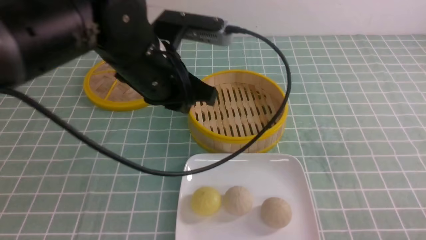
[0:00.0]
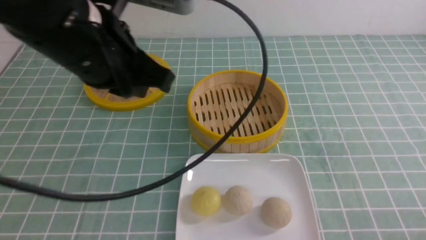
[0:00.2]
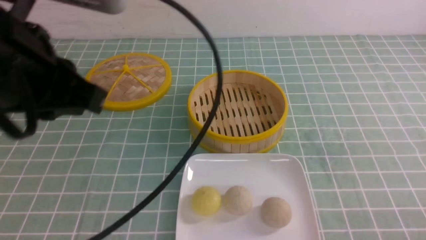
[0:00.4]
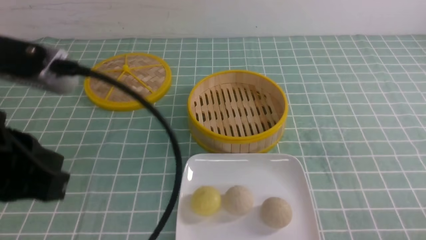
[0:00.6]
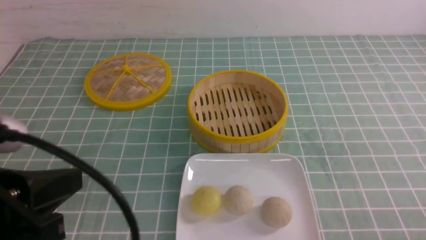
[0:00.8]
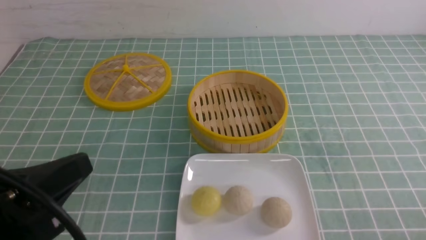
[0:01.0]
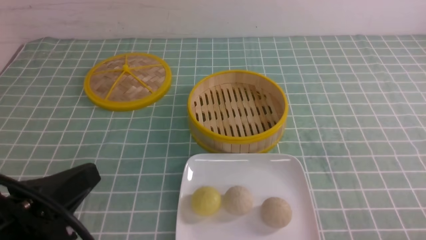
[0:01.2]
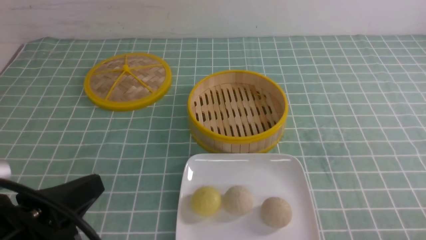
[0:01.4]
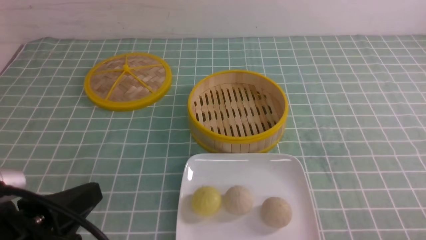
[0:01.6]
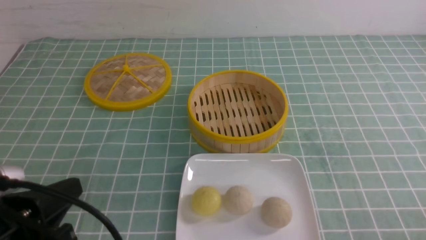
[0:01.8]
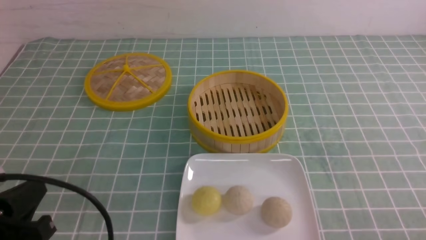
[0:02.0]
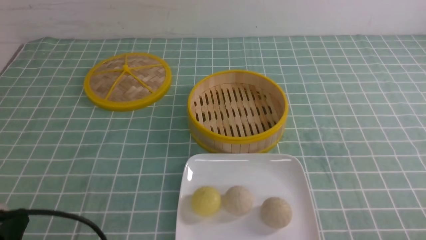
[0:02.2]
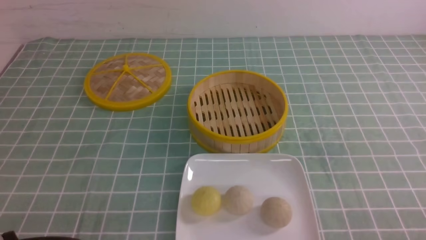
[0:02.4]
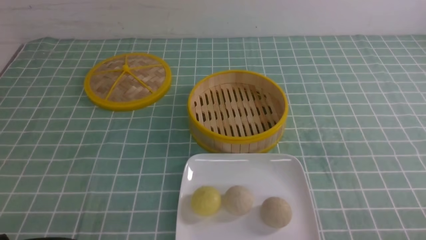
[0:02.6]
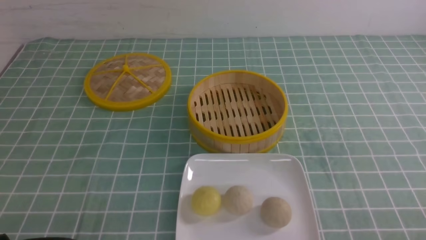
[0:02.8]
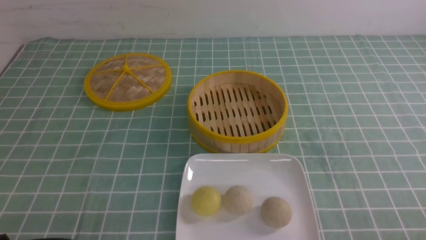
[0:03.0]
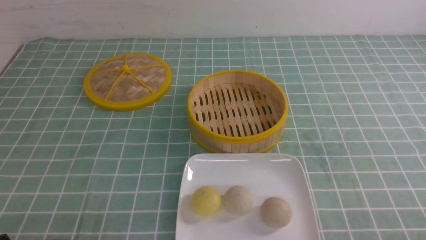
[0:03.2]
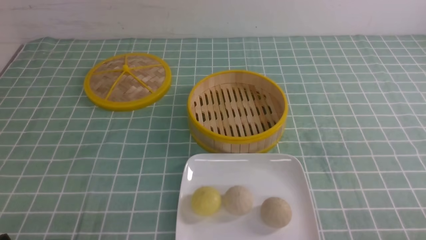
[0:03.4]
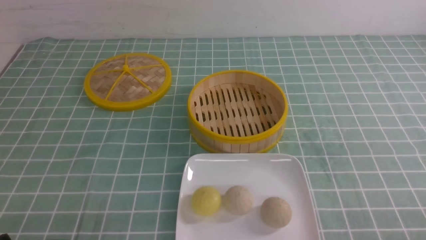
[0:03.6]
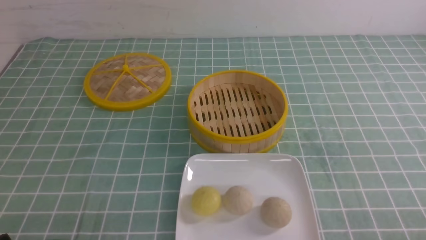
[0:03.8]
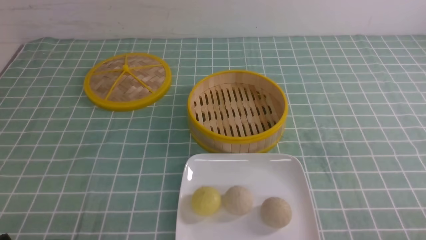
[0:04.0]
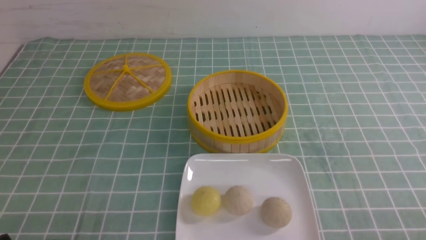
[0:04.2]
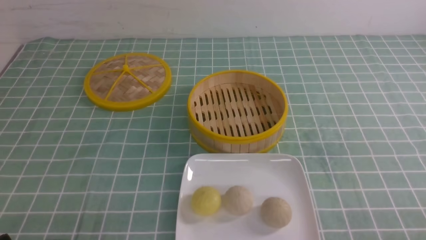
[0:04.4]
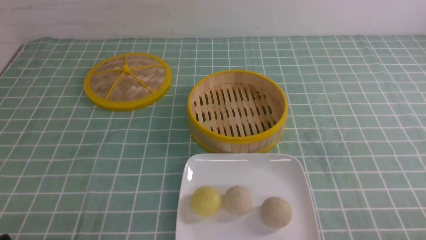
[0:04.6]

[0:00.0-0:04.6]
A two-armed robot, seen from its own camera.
0:00.0 to 0:01.6: The left gripper shifts roughly 25 cm backward and to the left.
0:01.6 to 0:03.0: The left gripper shifts approximately 10 cm downward and to the left.
0:03.0 to 0:04.6: The two grippers keep their place.

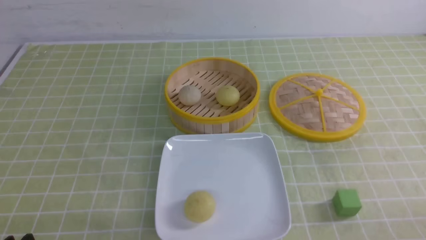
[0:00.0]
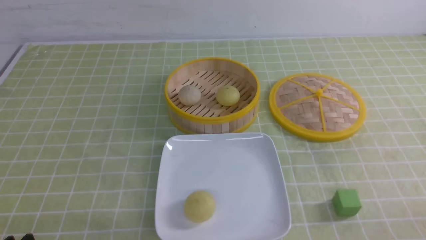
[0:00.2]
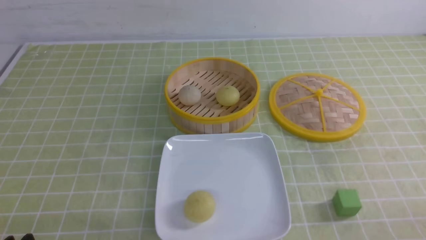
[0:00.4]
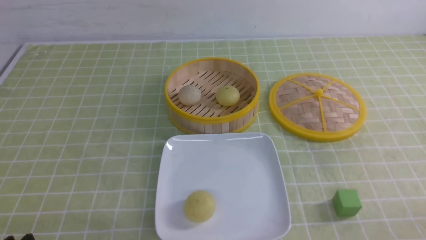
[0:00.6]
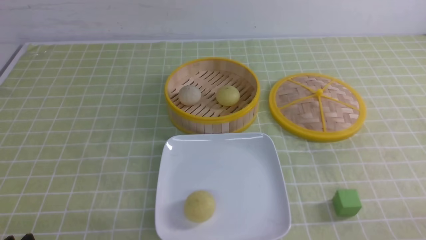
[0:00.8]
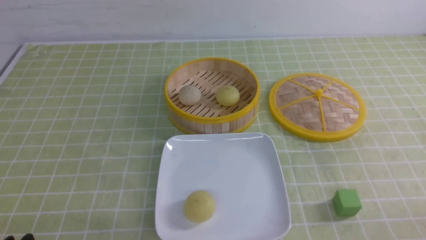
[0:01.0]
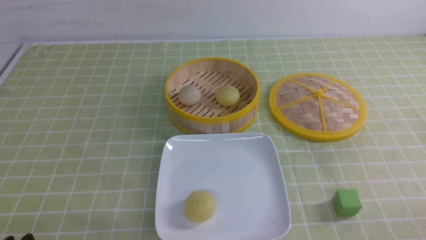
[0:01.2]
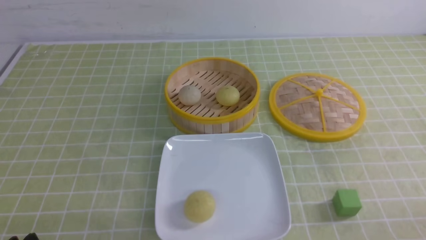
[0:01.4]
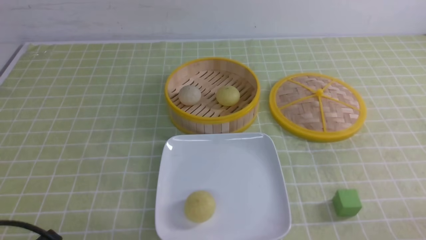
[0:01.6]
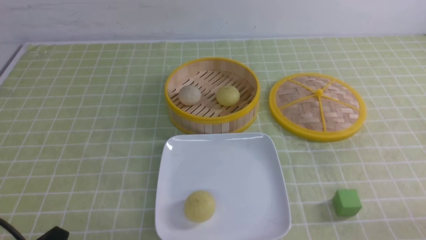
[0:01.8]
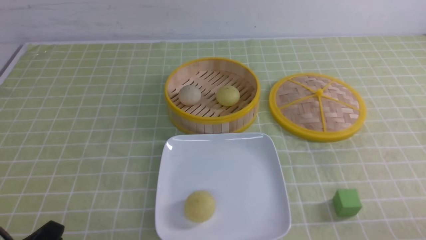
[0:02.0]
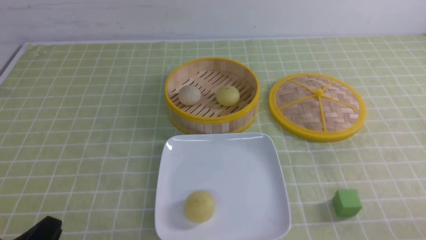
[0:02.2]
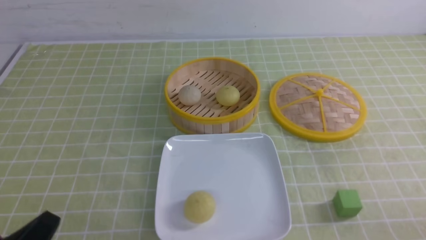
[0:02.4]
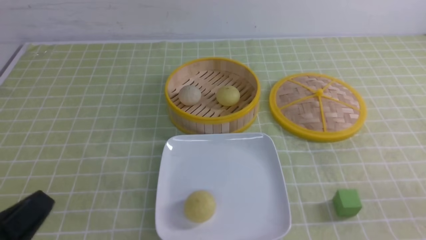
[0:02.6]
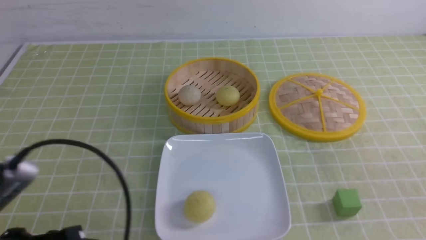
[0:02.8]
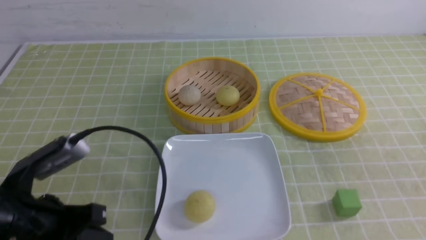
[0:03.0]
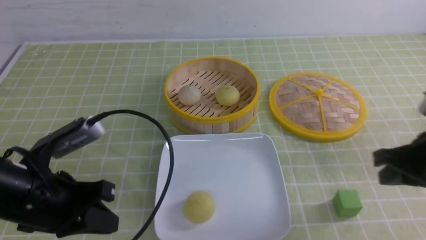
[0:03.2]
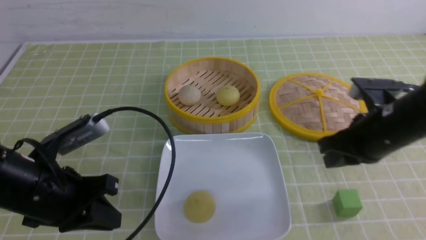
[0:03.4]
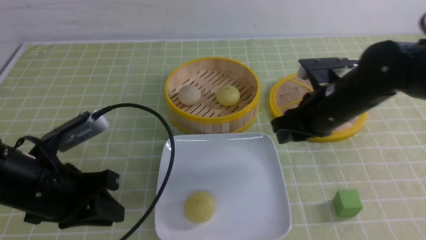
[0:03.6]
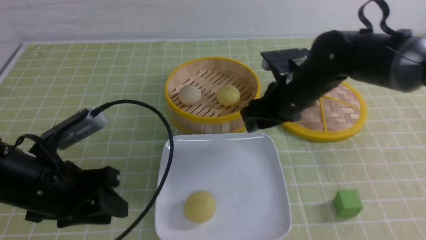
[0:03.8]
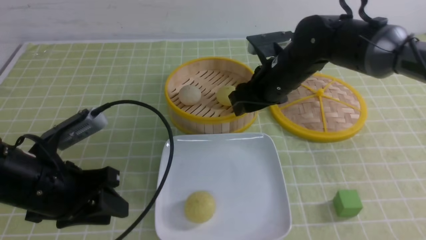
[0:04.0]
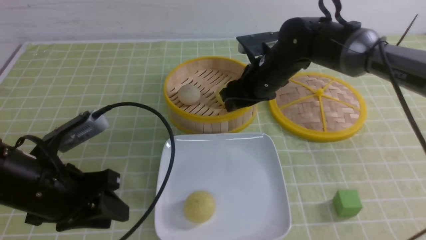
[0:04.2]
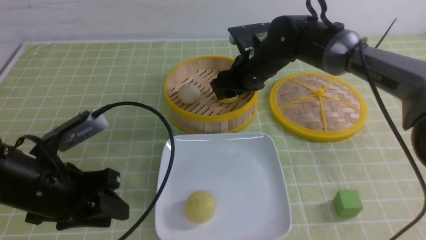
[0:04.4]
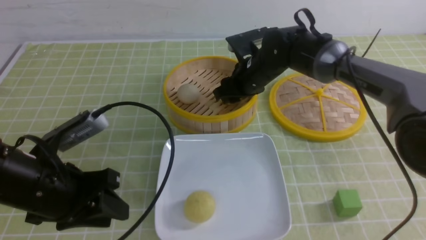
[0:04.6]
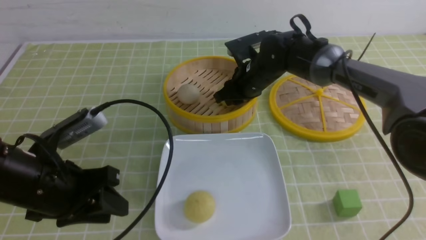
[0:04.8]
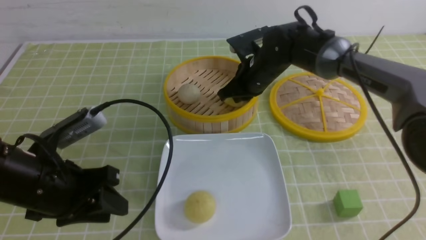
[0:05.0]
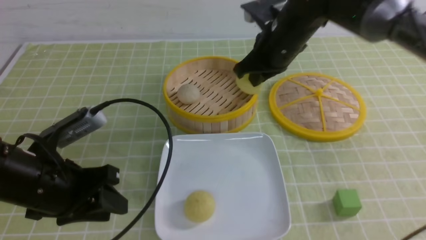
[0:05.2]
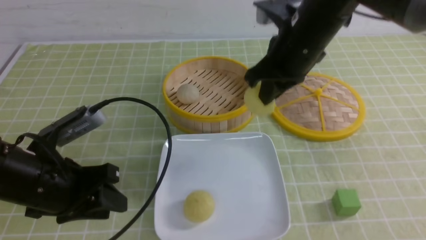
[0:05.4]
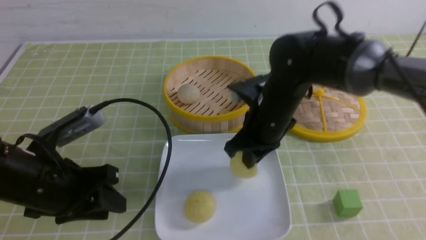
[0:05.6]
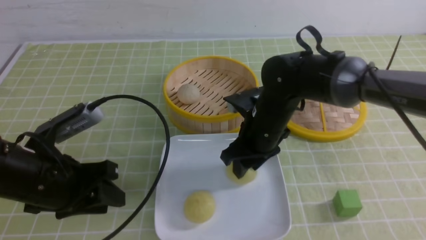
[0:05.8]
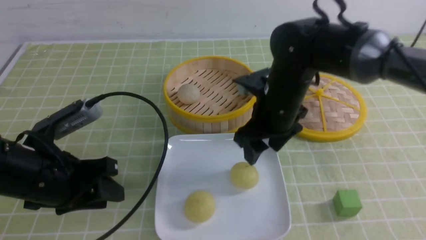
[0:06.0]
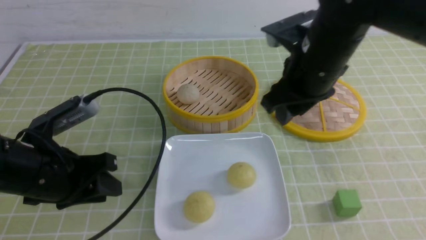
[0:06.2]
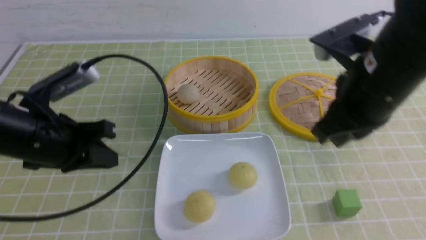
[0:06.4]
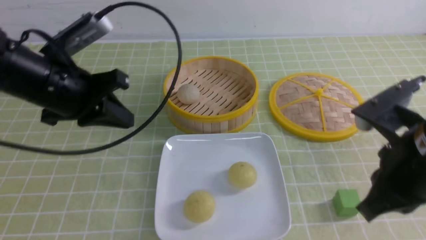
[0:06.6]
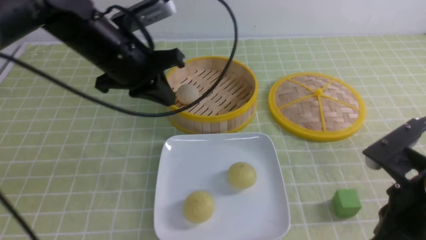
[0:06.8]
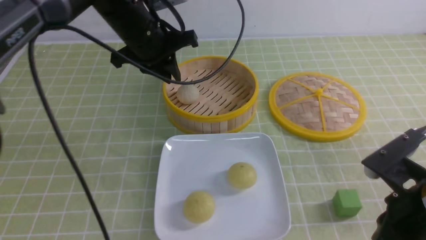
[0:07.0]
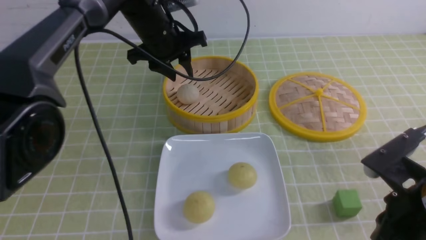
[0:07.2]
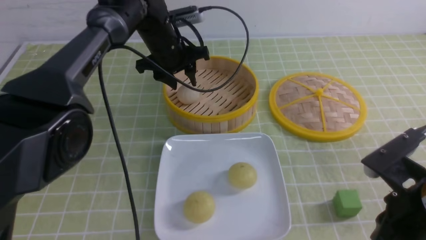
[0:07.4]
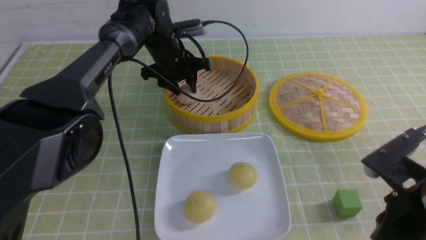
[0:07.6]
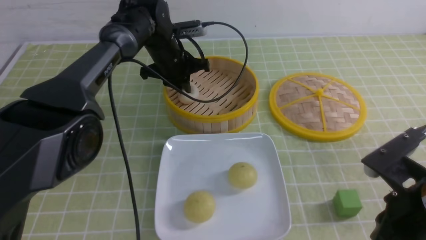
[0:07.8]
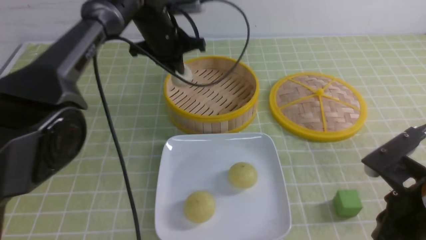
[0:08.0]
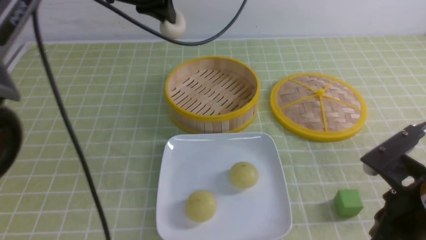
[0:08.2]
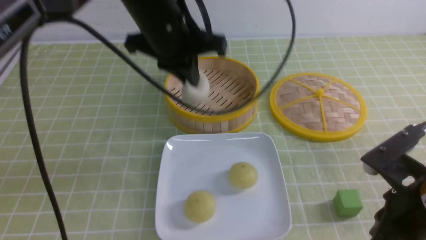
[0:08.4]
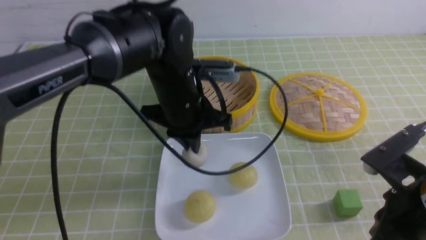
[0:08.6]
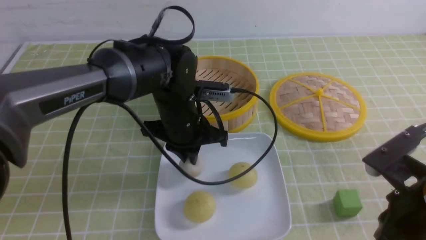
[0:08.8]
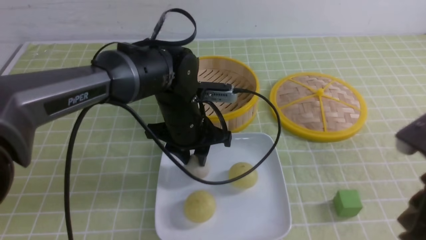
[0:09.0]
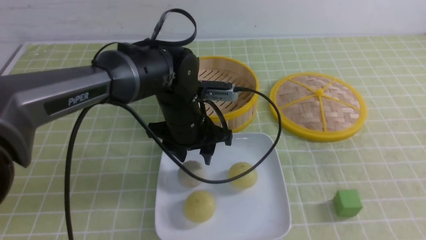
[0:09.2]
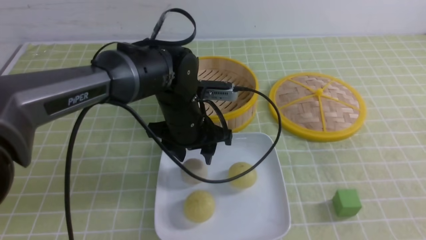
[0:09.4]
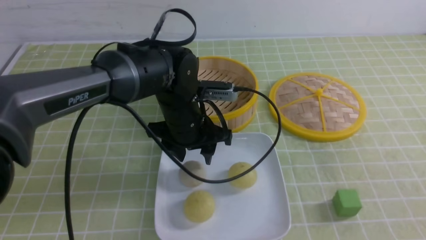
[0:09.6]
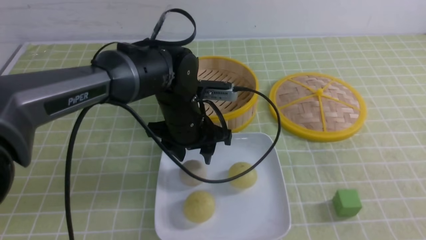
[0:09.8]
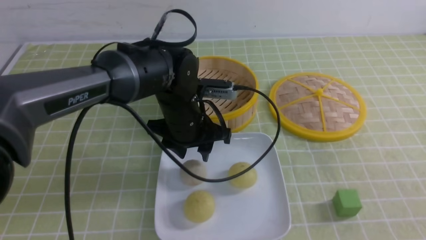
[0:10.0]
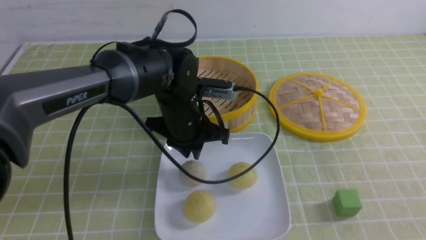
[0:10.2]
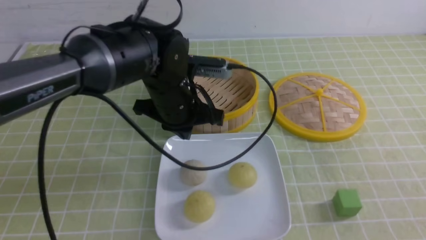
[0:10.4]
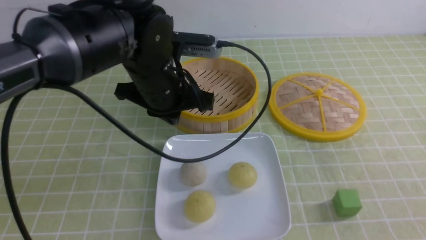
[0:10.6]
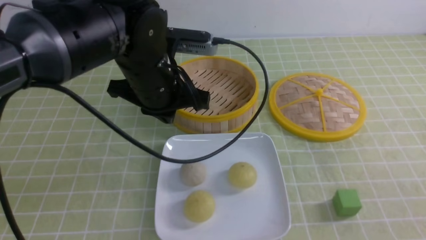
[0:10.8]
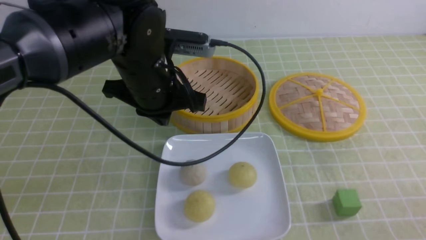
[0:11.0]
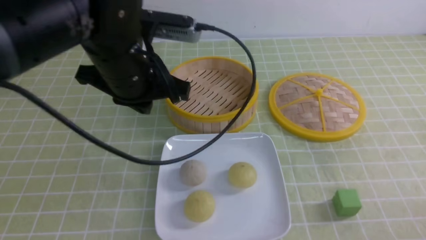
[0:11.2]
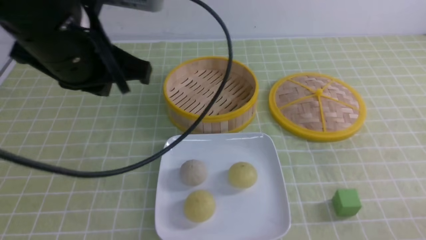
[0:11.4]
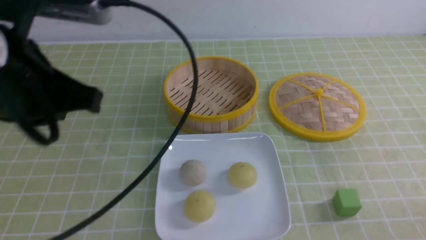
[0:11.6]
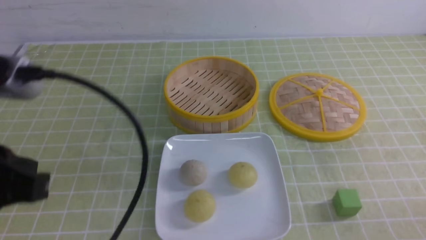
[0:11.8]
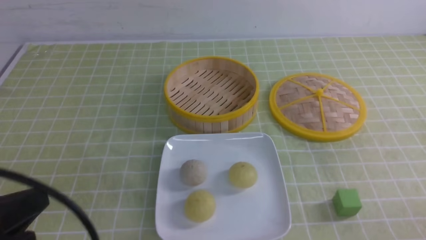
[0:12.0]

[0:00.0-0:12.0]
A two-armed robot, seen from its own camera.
Step, 0:00.0 to 0:04.8: use the right arm to grab the steamed stuffed bun that is closest to it.
Step, 0:05.0 to 0:05.8: use the right arm to put the steamed stuffed bun into the plate.
Step, 0:06.0 to 0:07.8: use the left arm to grab the steamed stuffed bun that is closest to it.
Step, 0:08.0 to 0:09.0: use the left arm to put the steamed stuffed bun into the plate.
0:01.6 to 0:03.0: Both grippers travel together forward and upward, about 15 cm. The right gripper closes; the left gripper closes its fingers.
0:03.0 to 0:04.4: The right gripper goes approximately 35 cm forward and to the left, and opens its fingers. Meanwhile the left gripper heads forward, covering about 5 cm, and opens its fingers.
0:04.4 to 0:06.0: The right gripper travels backward by about 10 cm, and closes and opens again.
0:06.0 to 0:07.6: The left gripper shifts roughly 30 cm forward and to the right, and closes, then opens again. Meanwhile the right gripper shifts some 20 cm backward and to the right, and closes its fingers.
0:07.6 to 0:09.0: The left gripper goes about 15 cm backward, and closes and opens again. The right gripper heads upward, covering approximately 5 cm.
0:09.0 to 0:10.4: The left gripper closes up; the right gripper heads backward and to the right, covering roughly 15 cm.
0:10.4 to 0:12.0: The right gripper travels downward by approximately 10 cm, while the left gripper moves backward and to the left, roughly 30 cm.
